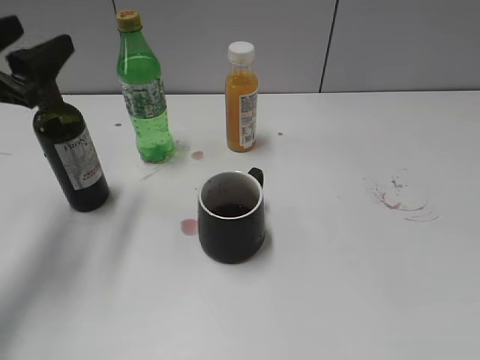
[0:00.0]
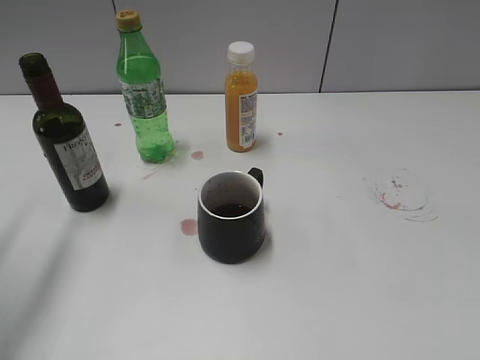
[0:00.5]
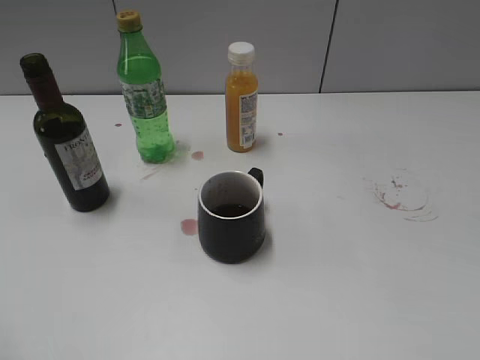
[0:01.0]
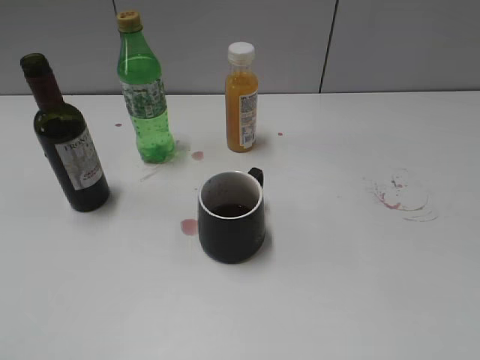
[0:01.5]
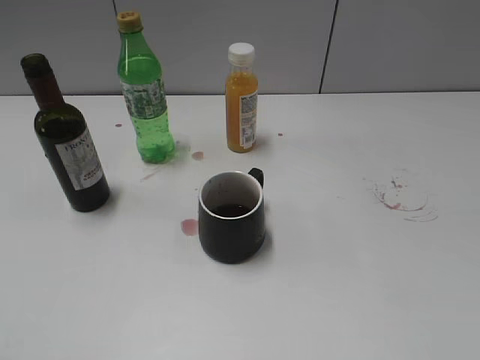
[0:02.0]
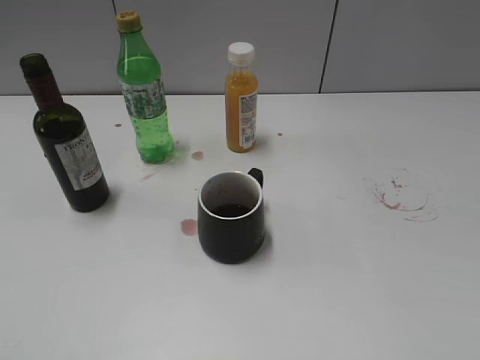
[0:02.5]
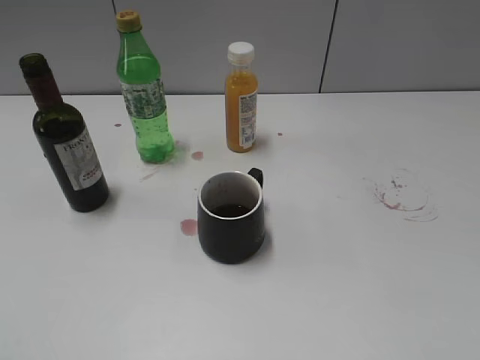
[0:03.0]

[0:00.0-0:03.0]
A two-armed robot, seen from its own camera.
0:00.0 to 0:01.5: The left gripper moves backward, about 30 cm, and closes its fingers.

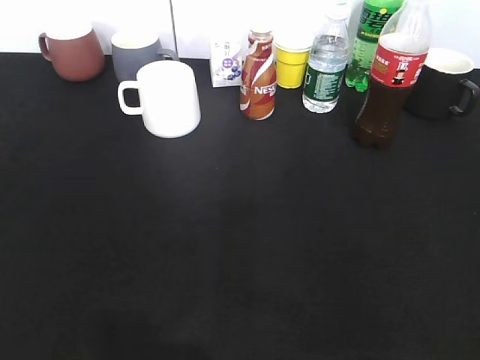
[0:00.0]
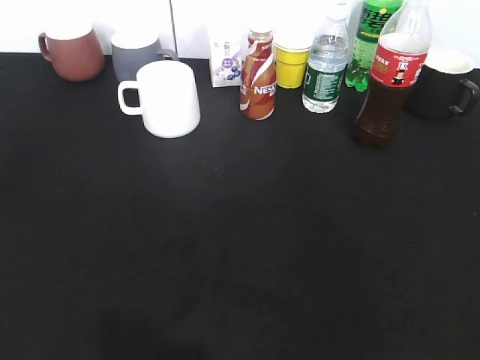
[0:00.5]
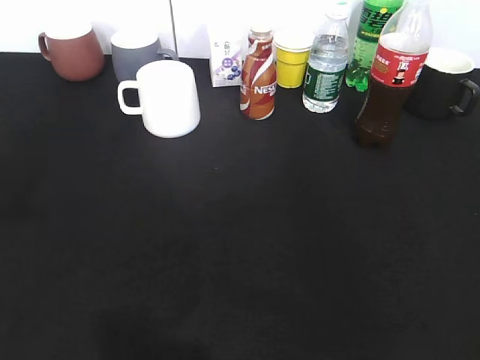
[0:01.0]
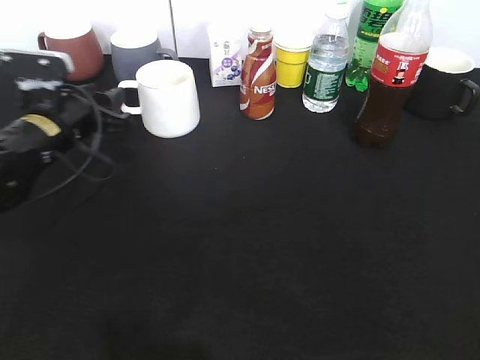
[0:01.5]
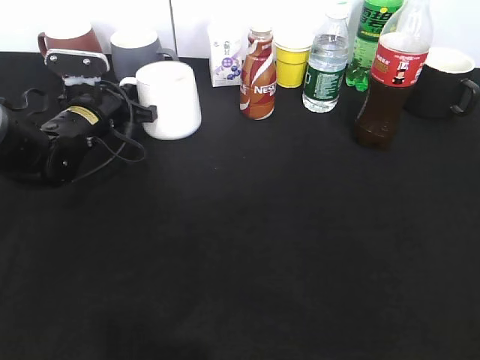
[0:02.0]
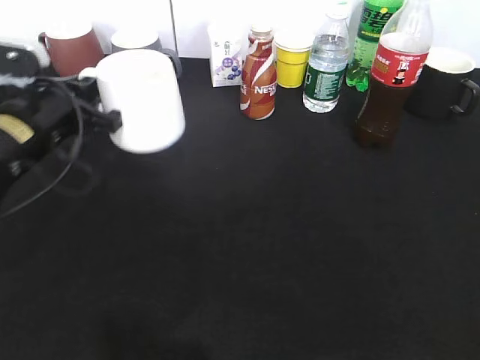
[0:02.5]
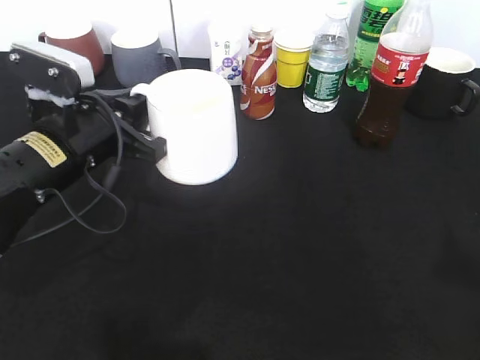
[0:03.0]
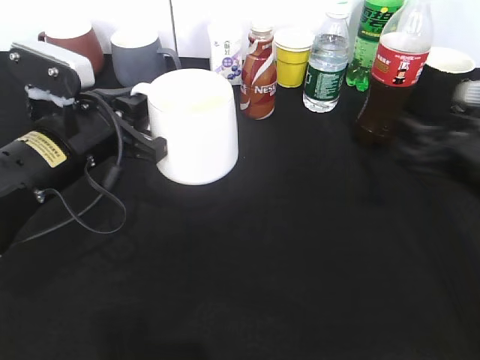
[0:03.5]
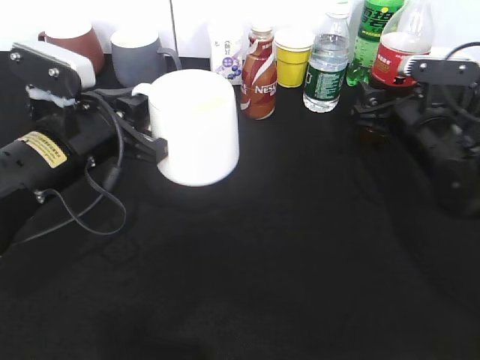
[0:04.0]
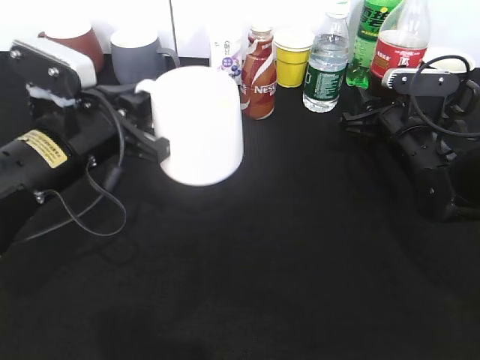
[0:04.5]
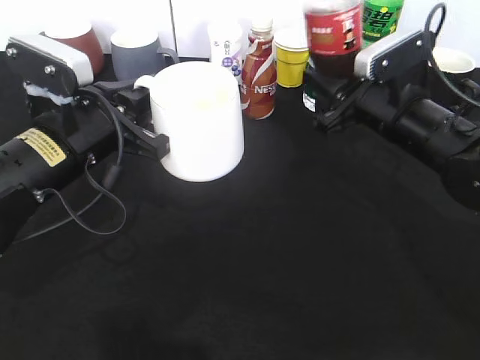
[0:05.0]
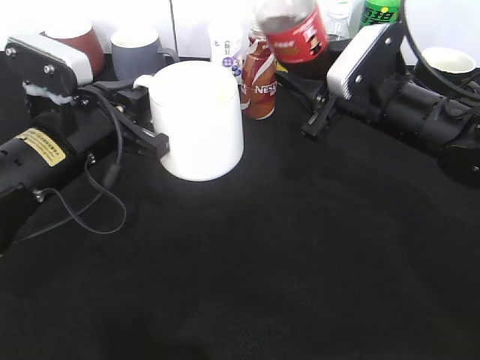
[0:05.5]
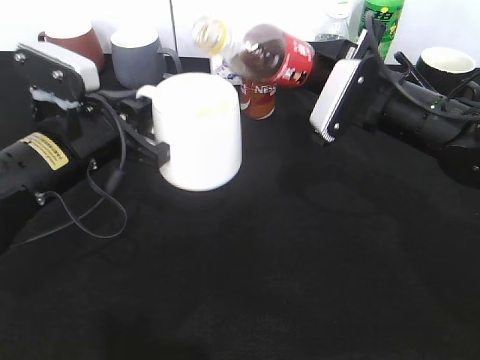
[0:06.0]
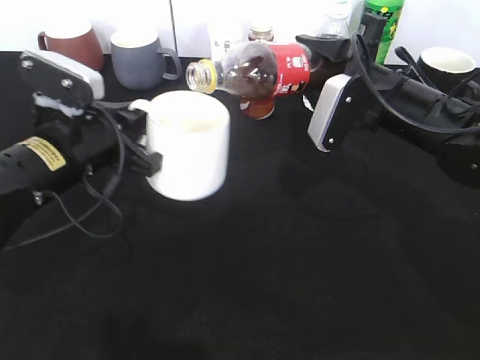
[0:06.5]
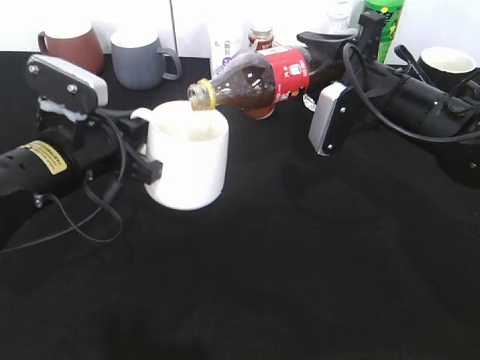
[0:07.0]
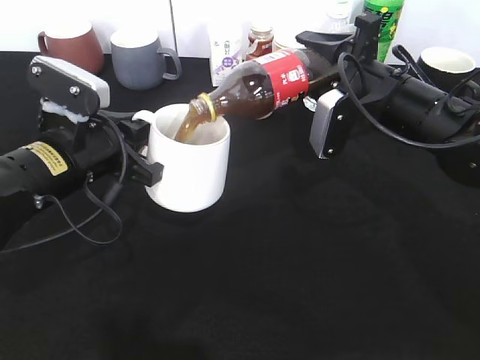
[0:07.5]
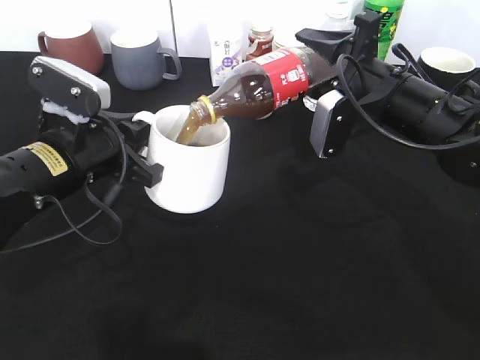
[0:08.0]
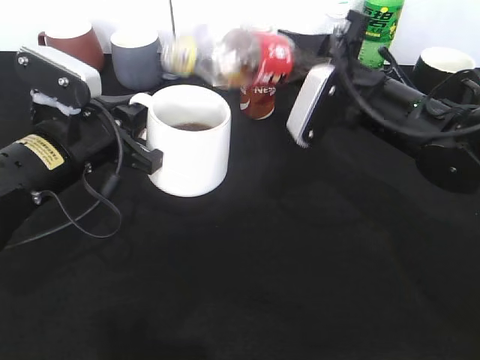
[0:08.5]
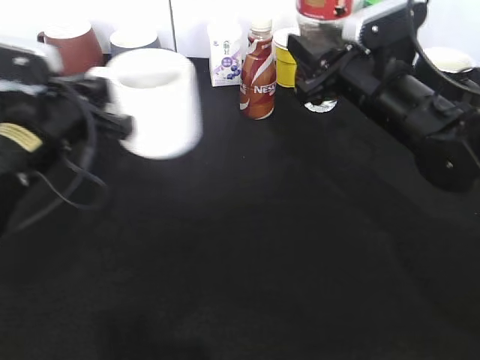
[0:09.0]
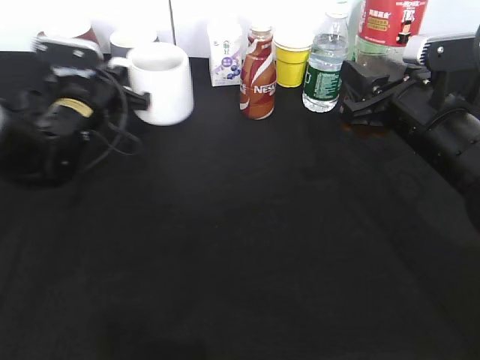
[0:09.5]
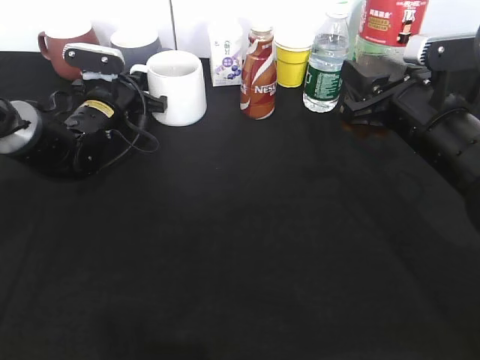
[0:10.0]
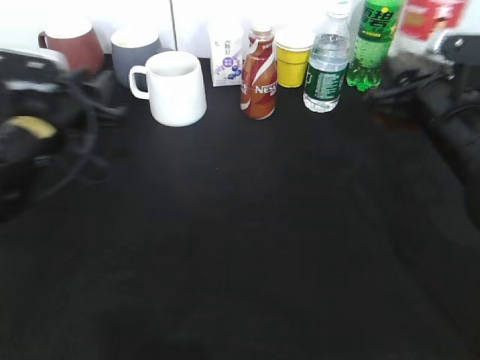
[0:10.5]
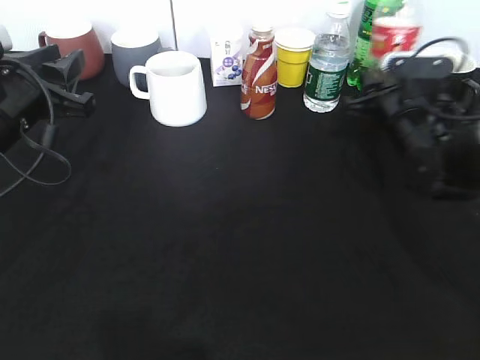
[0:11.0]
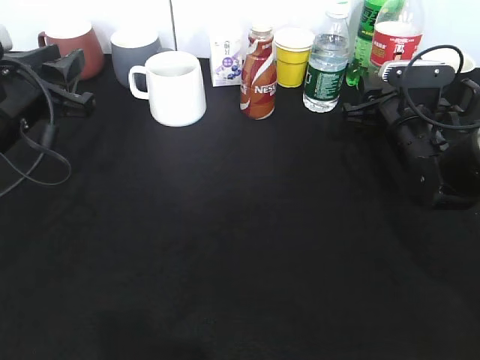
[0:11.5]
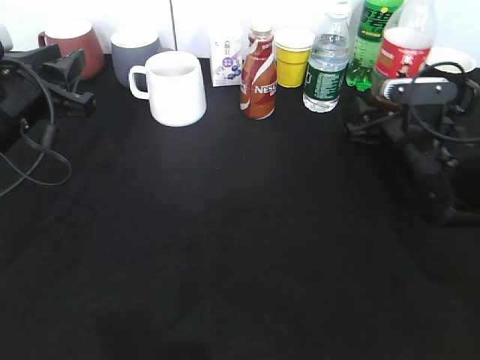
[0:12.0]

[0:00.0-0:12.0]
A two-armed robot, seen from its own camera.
Step, 0:00.0 to 0:02.0: Grasp the white cup with left gripper.
Step, 0:02.5 to 0:03.0: Lift the white cup with left gripper.
Step, 0:03.5 to 0:04.0: Grasp the bottle with cola with right gripper.
Step, 0:04.5 to 0:08.5: Pour the cola from bottle to cup with right gripper.
Step, 0:09.0 to 0:10.0: Place the white cup on the table with left gripper.
0:00.0 to 0:02.0: The left gripper travels forward by roughly 40 cm, and closes.
0:02.0 to 0:04.0: The right gripper goes about 40 cm forward and downward, while the left gripper travels backward and upward by roughly 15 cm.
0:04.0 to 0:06.0: The right gripper moves to the left and upward, approximately 10 cm, and closes its fingers.
0:08.0 to 0:10.0: The left gripper heads forward, covering roughly 20 cm. Meanwhile the right gripper is displaced backward by roughly 5 cm.
0:10.0 to 0:12.0: The left gripper moves backward and upward, some 20 cm, and opens up, while the right gripper goes about 10 cm downward and forward, and opens its fingers.

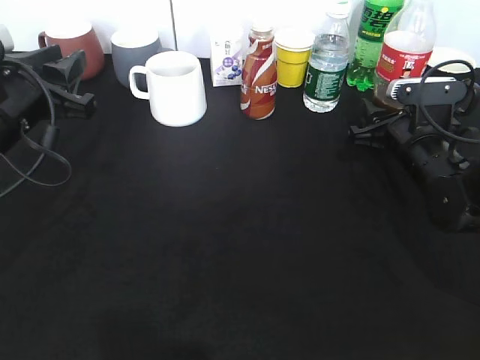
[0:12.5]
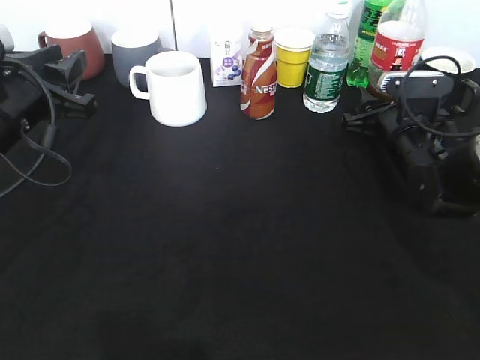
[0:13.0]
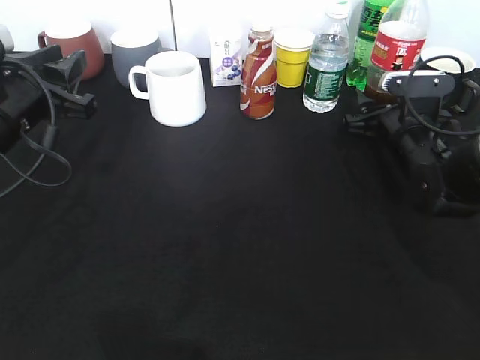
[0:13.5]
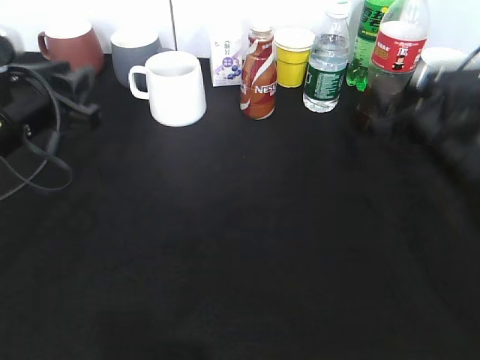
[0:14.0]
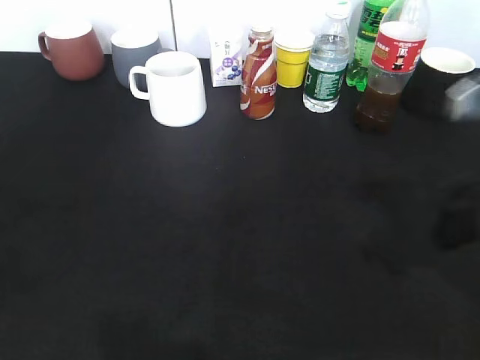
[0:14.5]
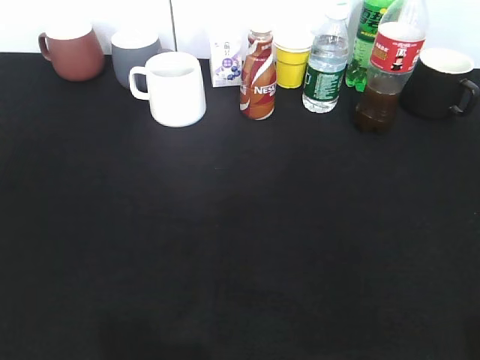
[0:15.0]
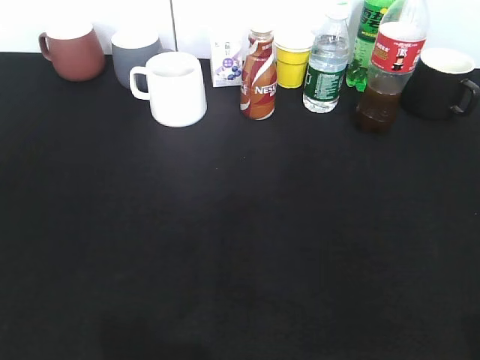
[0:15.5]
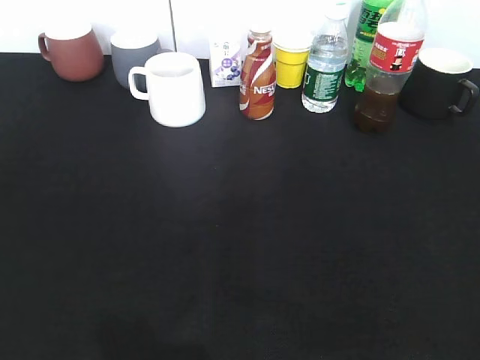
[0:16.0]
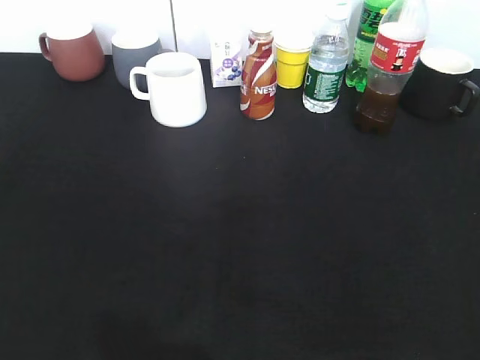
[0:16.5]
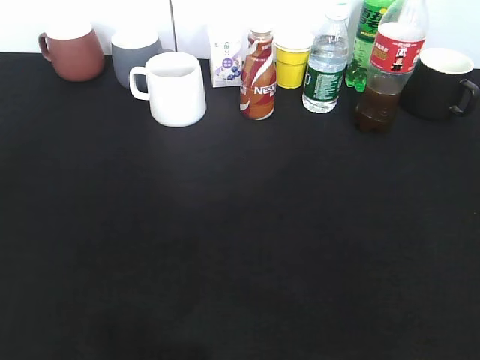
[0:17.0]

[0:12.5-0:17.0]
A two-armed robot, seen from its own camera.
0:12.5 to 0:14.5: The left gripper goes some 20 cm backward and upward; the right gripper shifts roughly 20 cm upward and backward, and opens up.
0:14.5 to 0:17.0: The right gripper heads backward, covering roughly 20 cm; the left gripper heads backward and to the left, covering roughly 15 cm.

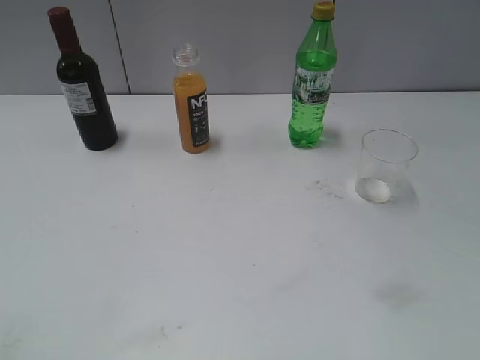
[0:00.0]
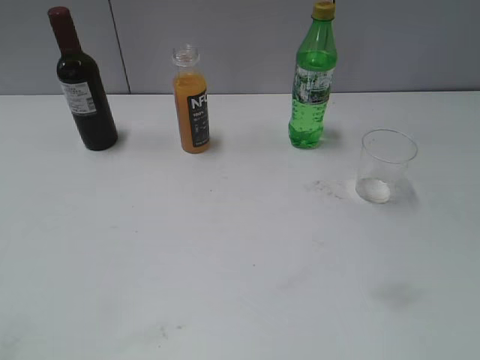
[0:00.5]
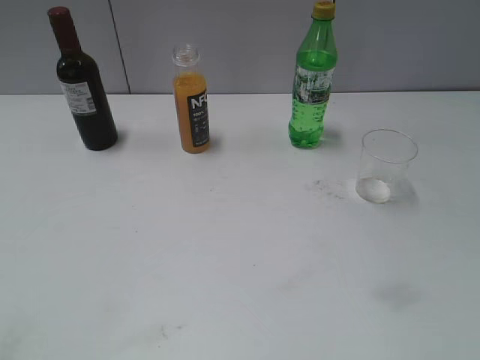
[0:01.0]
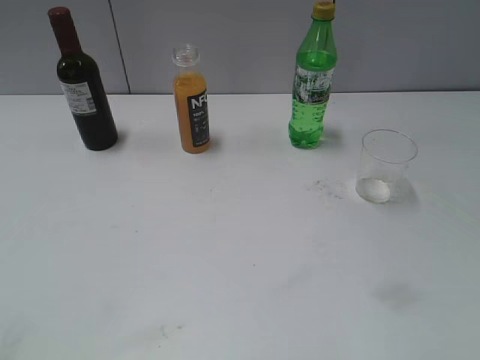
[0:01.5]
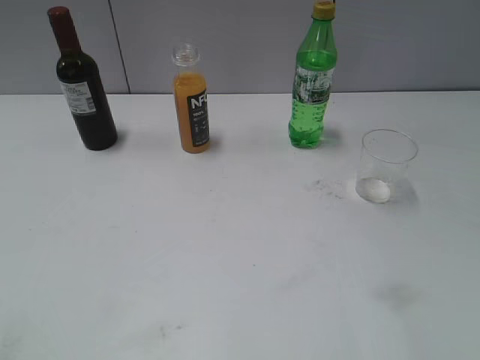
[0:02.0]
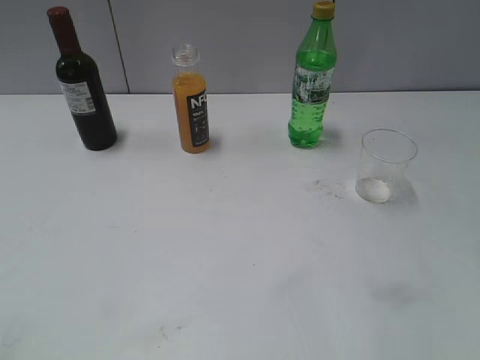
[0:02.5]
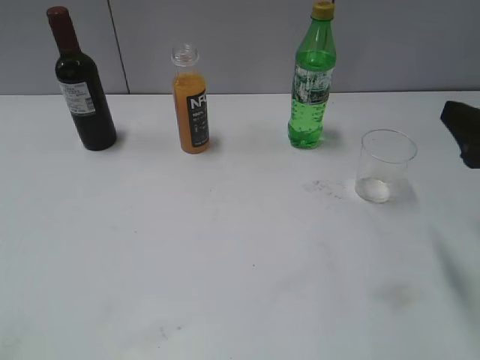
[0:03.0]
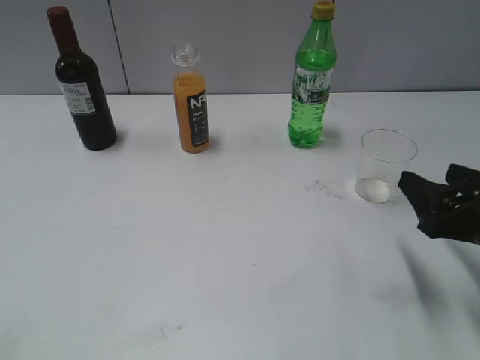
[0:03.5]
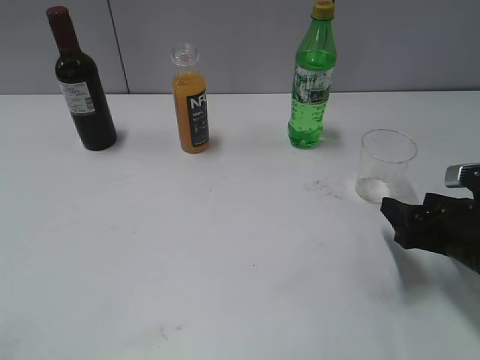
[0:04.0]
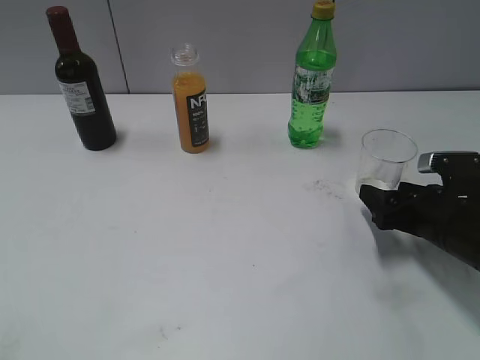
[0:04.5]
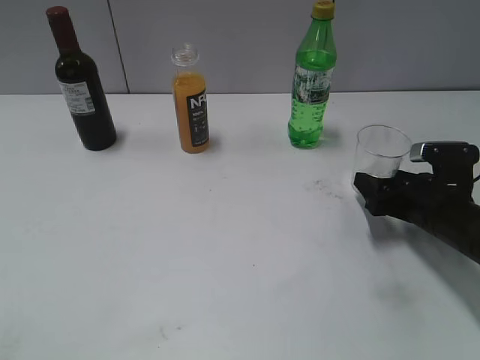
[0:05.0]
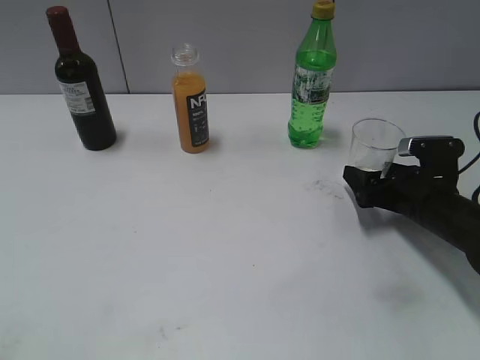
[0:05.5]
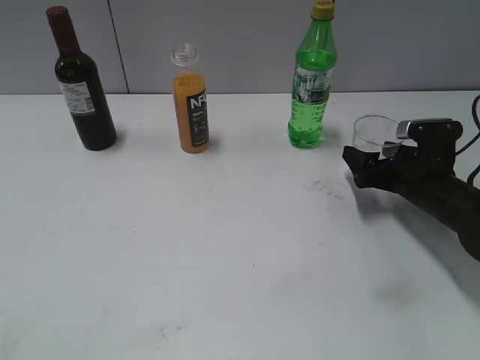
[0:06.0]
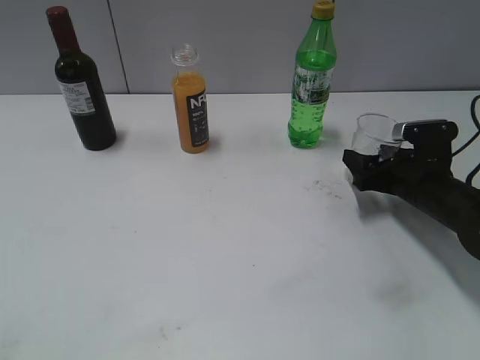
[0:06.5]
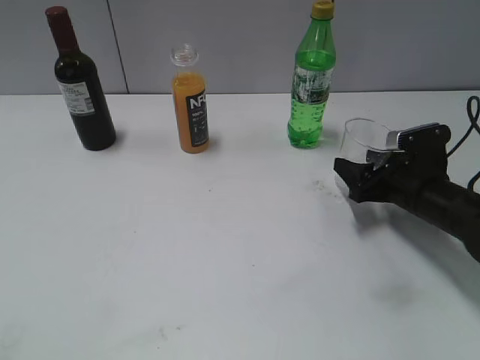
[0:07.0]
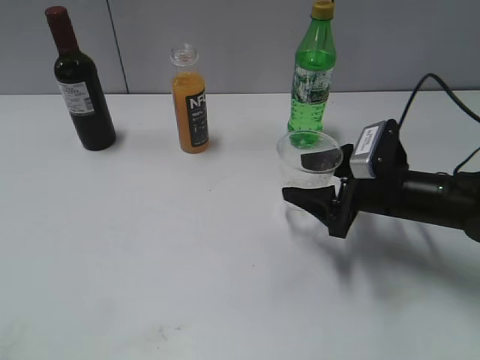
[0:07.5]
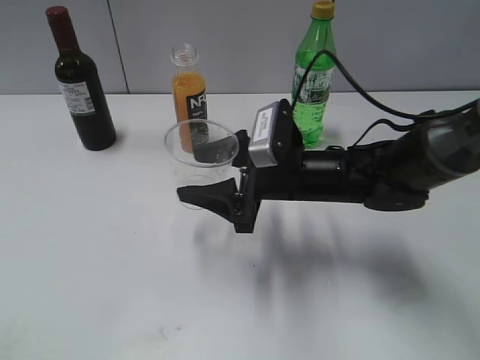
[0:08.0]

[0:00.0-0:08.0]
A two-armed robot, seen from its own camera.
Step, 0:03.0 to 0:06.5: Grasp the transparent cup with right gripper.
0:02.0 to 0:04.0: The right gripper goes roughly 25 cm downward and forward, and opens.
0:04.0 to 0:06.0: The right gripper heads forward, covering some 10 cm, and opens up.
0:06.0 to 0:08.0: The right gripper is displaced to the left by some 15 cm, and closes.
